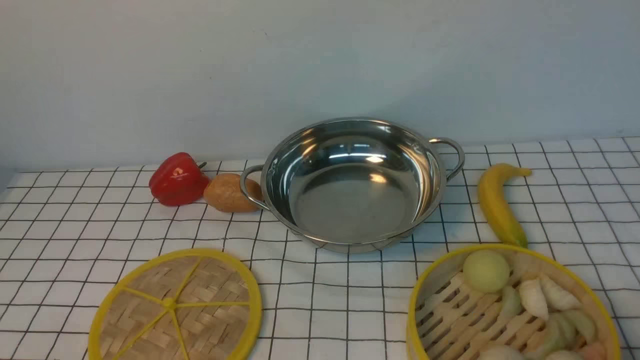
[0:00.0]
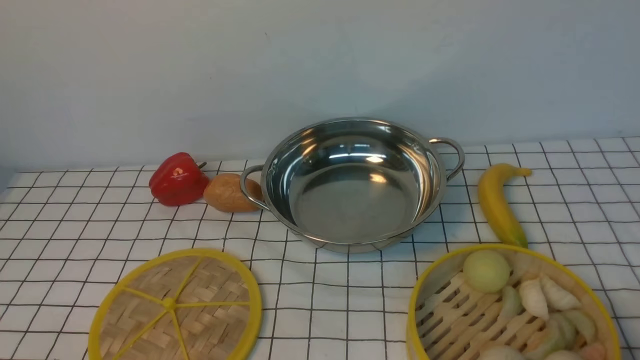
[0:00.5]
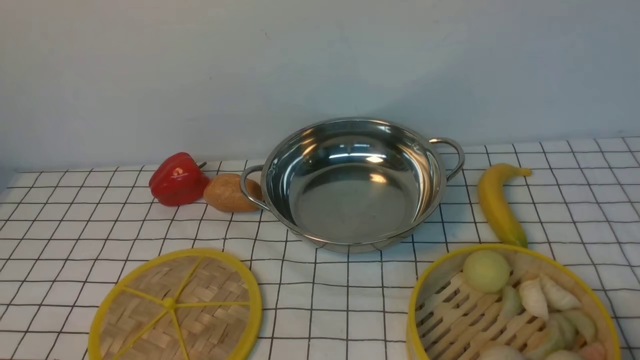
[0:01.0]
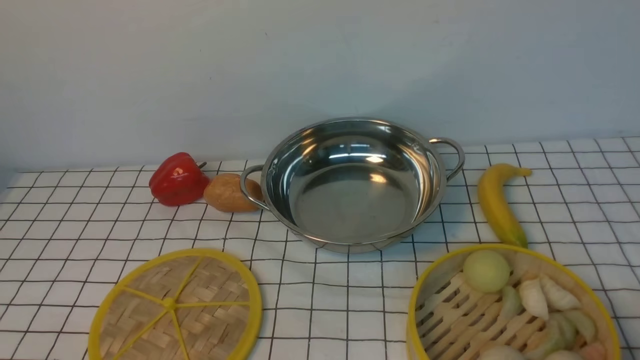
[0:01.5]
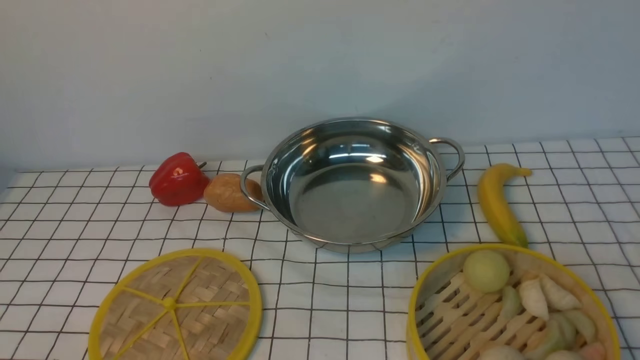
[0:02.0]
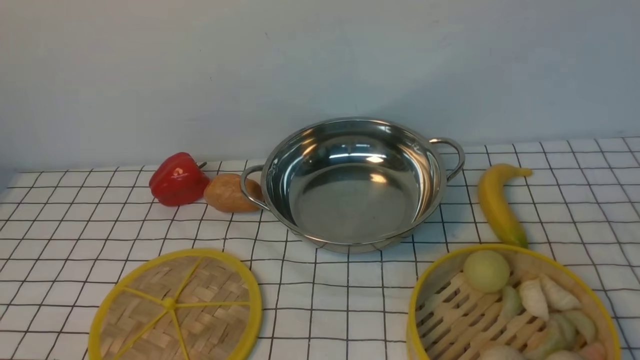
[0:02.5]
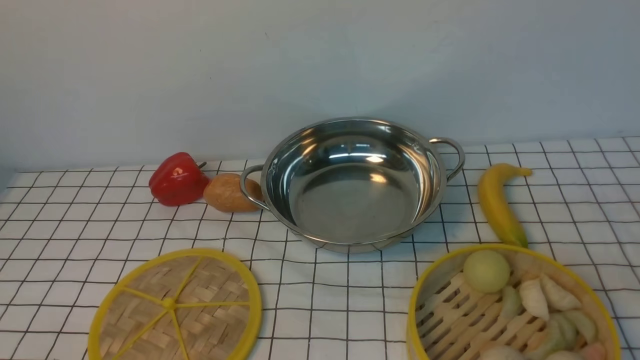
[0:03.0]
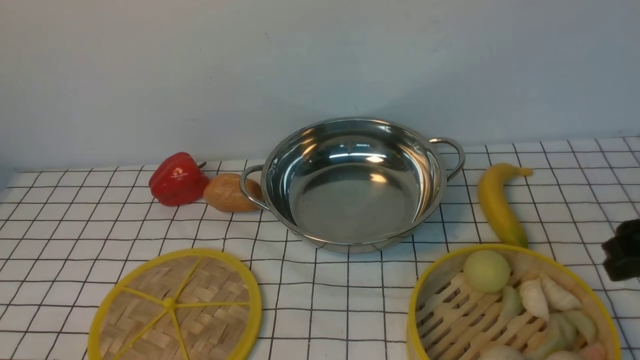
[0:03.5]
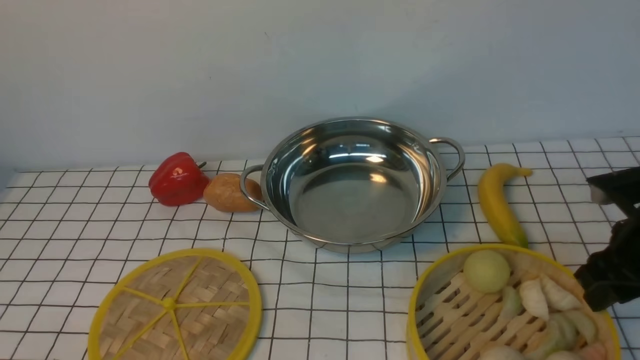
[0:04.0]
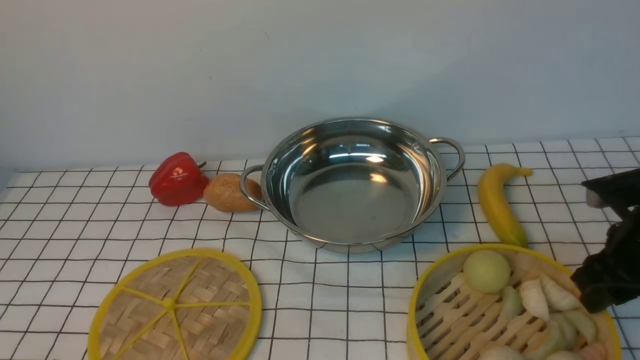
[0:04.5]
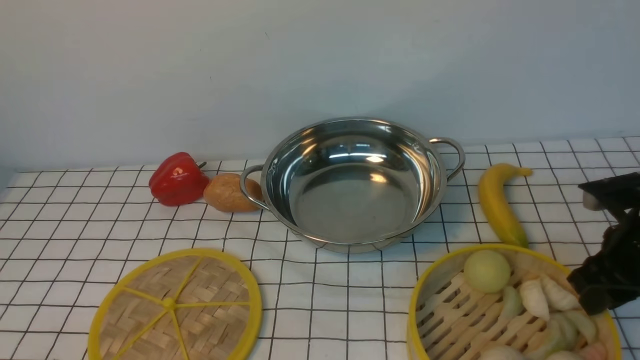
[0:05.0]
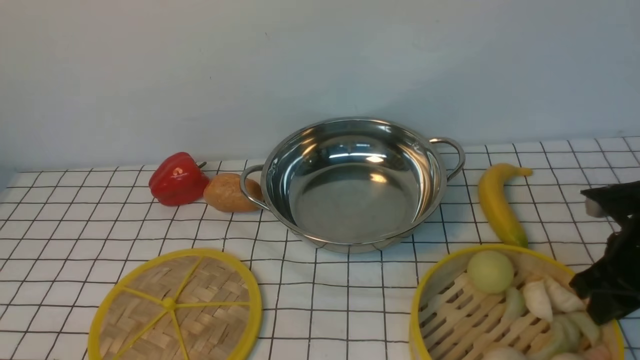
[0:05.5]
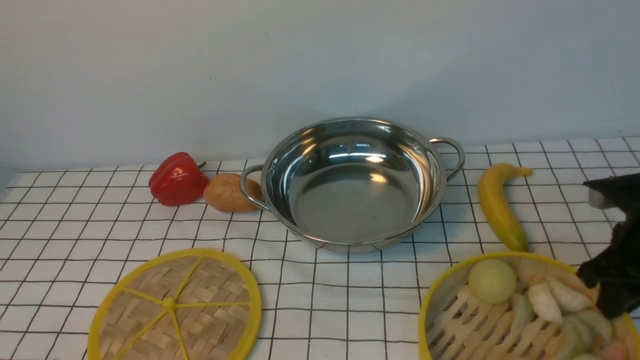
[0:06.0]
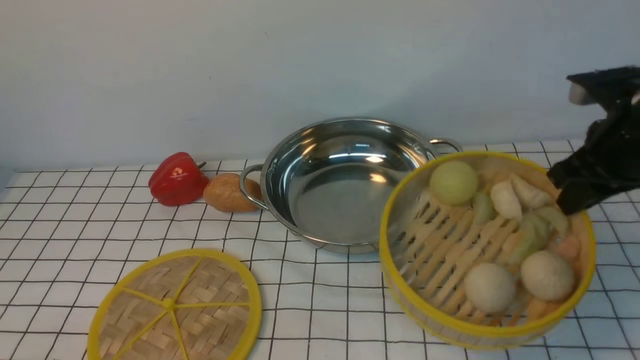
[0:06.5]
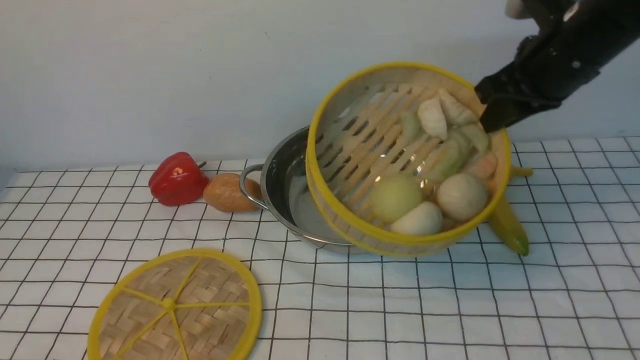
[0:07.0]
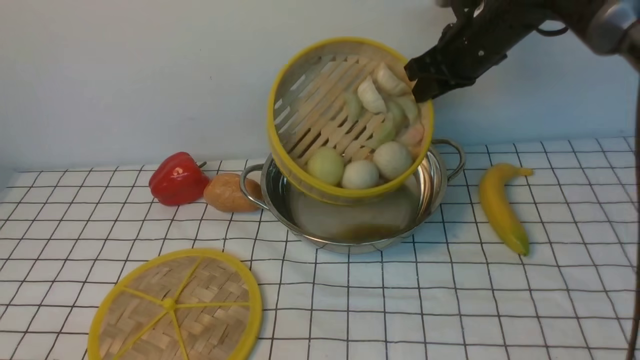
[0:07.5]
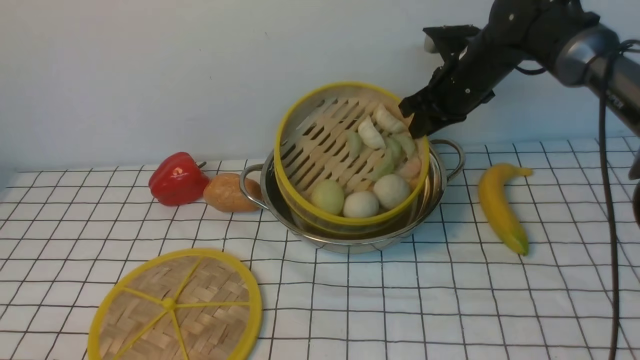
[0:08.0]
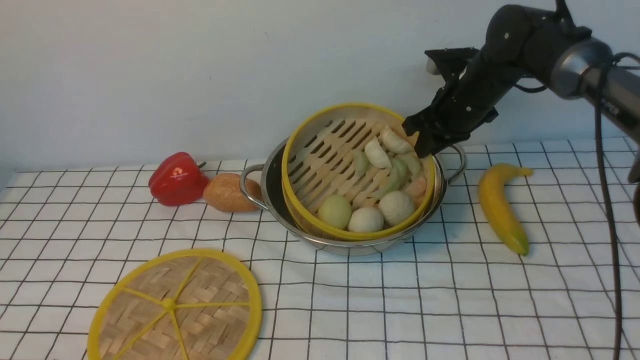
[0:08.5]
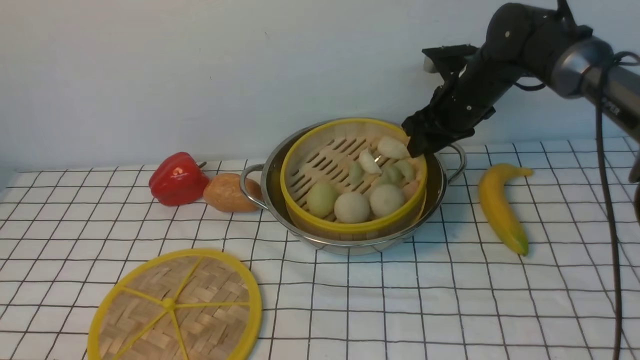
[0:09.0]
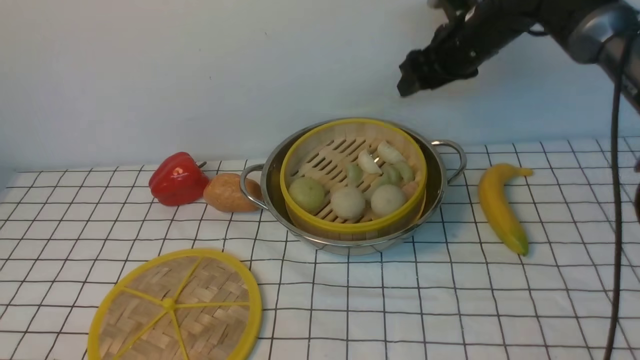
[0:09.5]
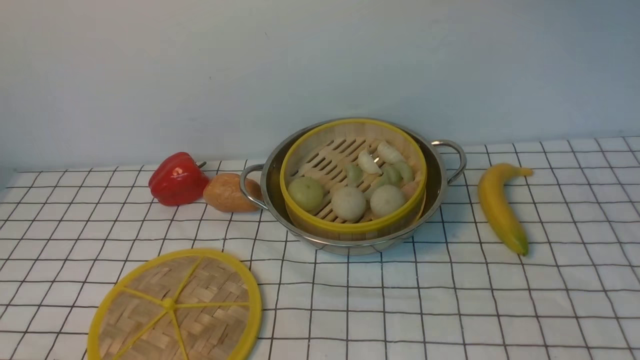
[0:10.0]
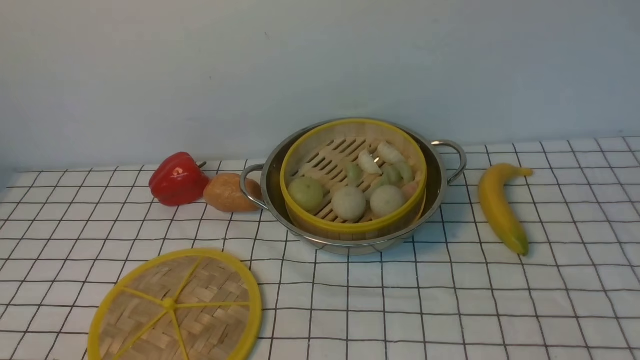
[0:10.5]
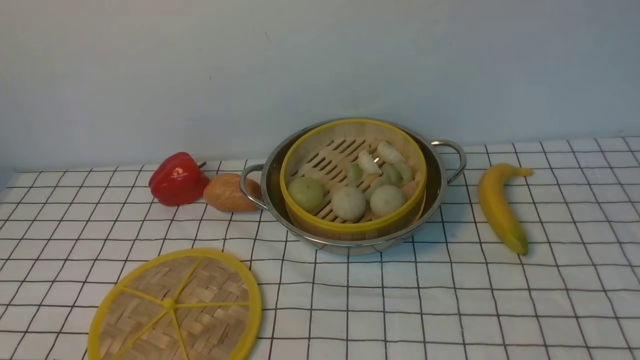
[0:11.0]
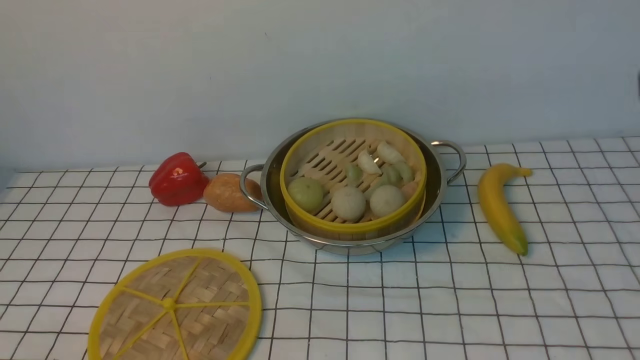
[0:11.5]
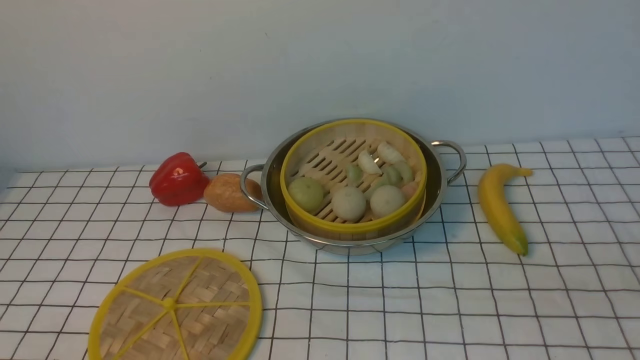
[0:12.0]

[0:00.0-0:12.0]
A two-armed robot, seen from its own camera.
Task of the whole recording: place the steamer in the pot on the white tablecloth, and put the lid on the steamer.
Step, 0:00.0 to 0:05.5: use the right arm to lift the steamer closest to it.
Step, 0:06.0 to 0:09.0: use the right arm to put the steamer into the iron steamer pot in the middle.
0:02.0 to 0:04.0: The right gripper shifts approximately 25 cm forward and downward.
0:04.0 to 0:06.0: The right gripper closes.
0:06.0 to 0:08.0: The right gripper goes some 25 cm forward and to the left.
0:08.0 to 0:10.0: The right gripper shifts roughly 25 cm upward, and opens, then closes once more.

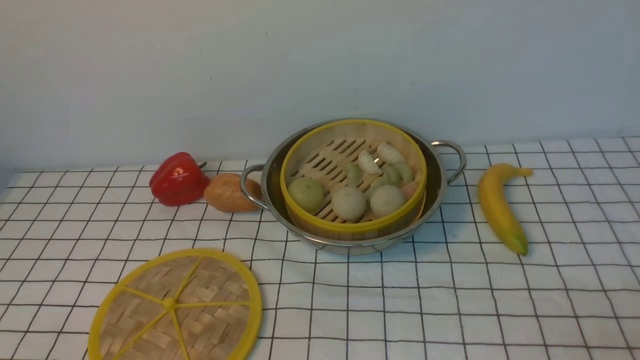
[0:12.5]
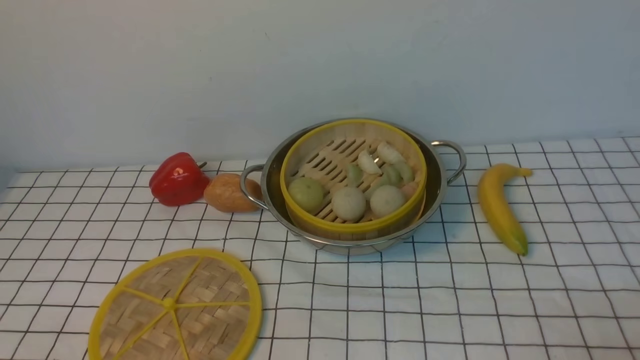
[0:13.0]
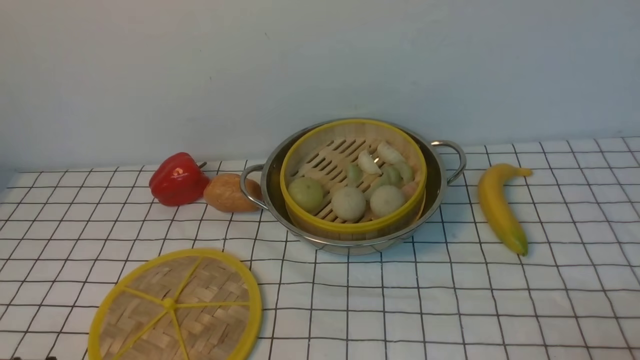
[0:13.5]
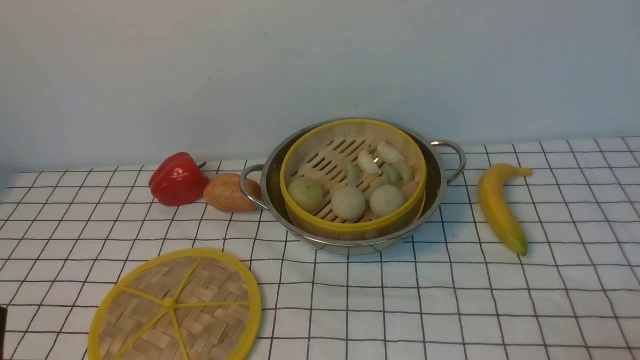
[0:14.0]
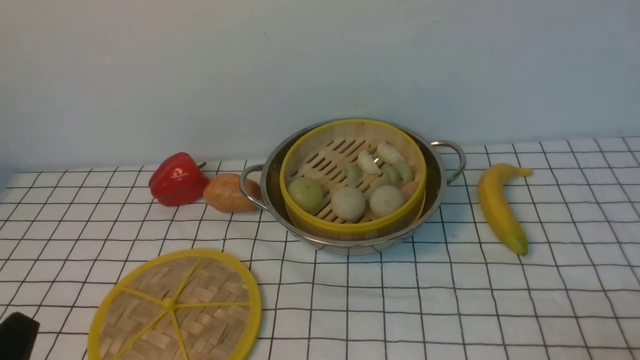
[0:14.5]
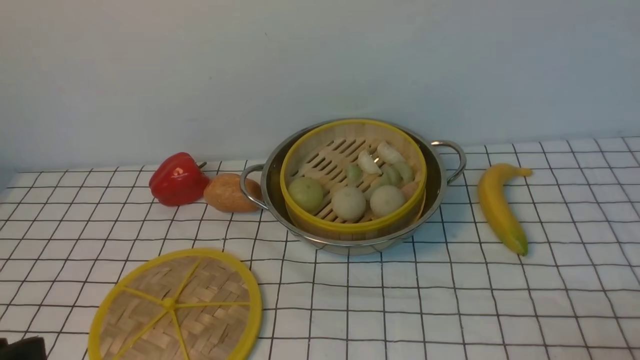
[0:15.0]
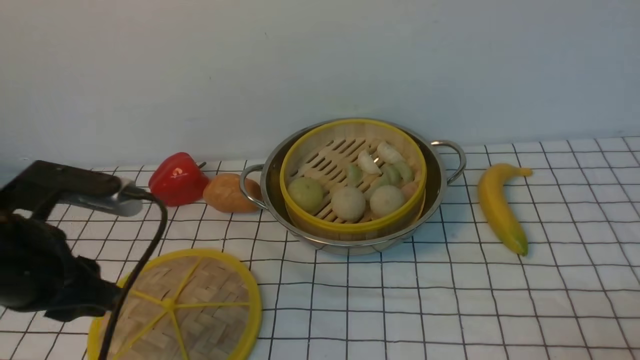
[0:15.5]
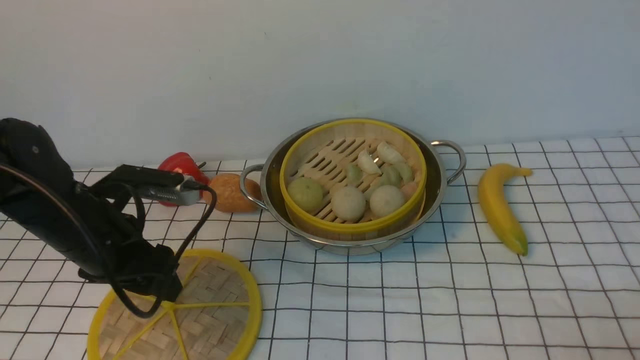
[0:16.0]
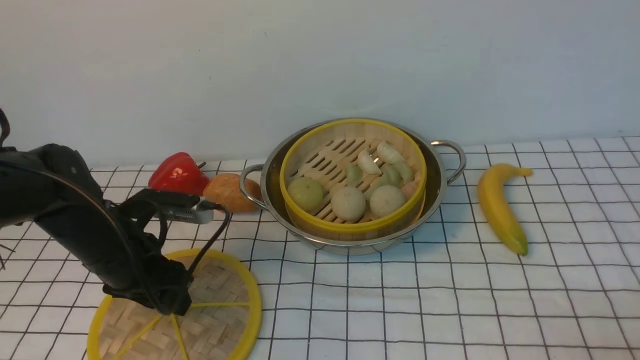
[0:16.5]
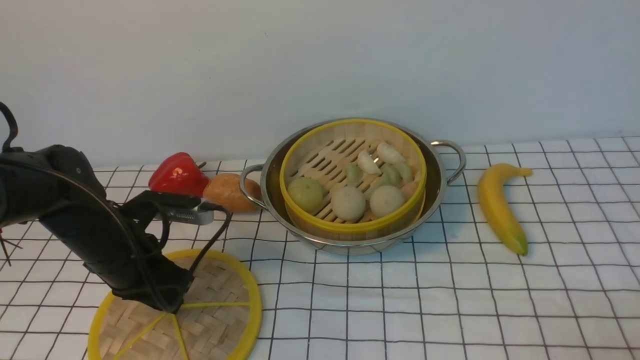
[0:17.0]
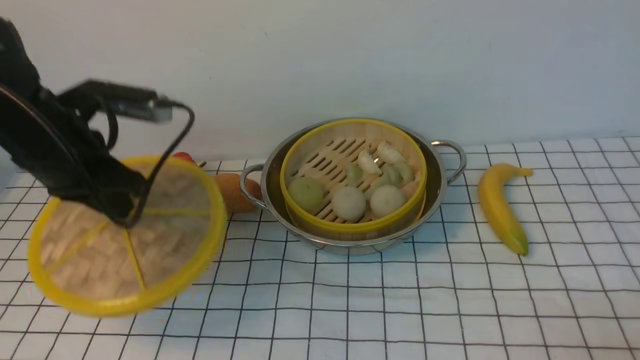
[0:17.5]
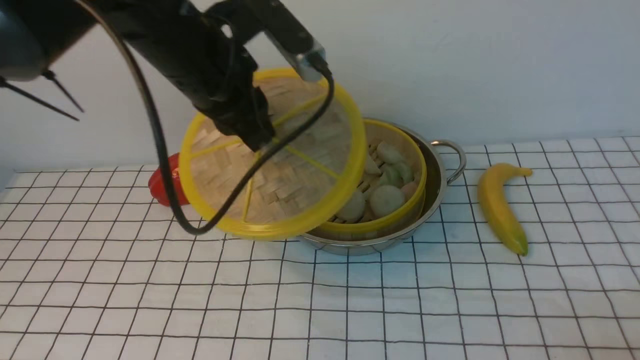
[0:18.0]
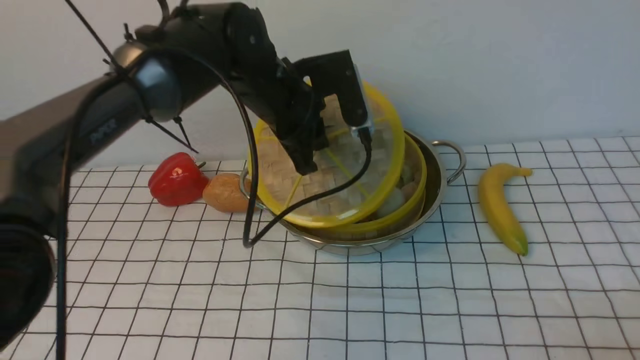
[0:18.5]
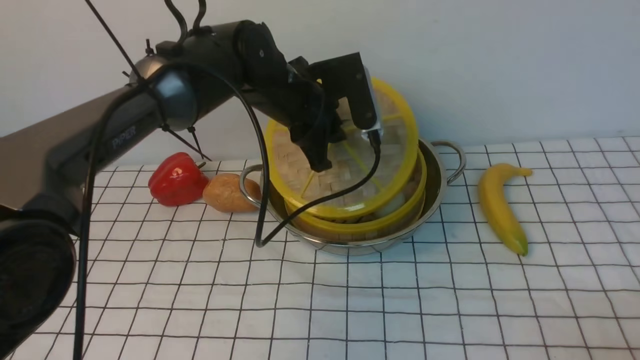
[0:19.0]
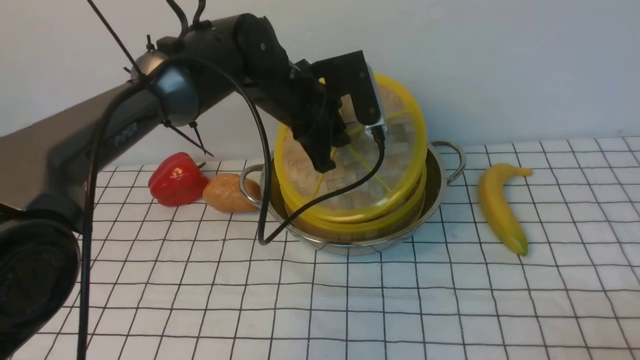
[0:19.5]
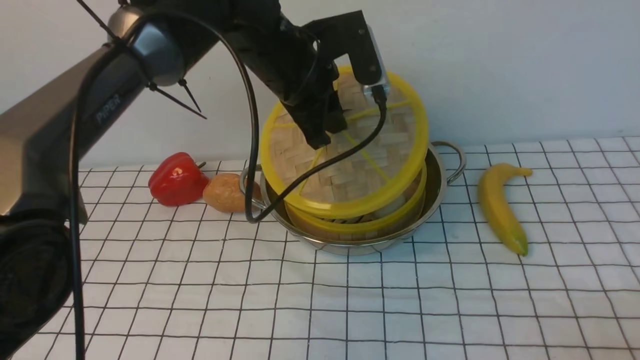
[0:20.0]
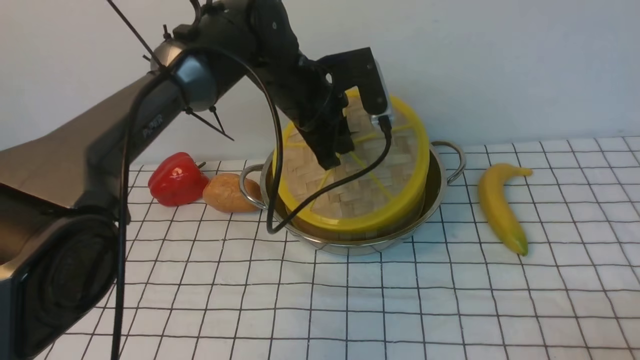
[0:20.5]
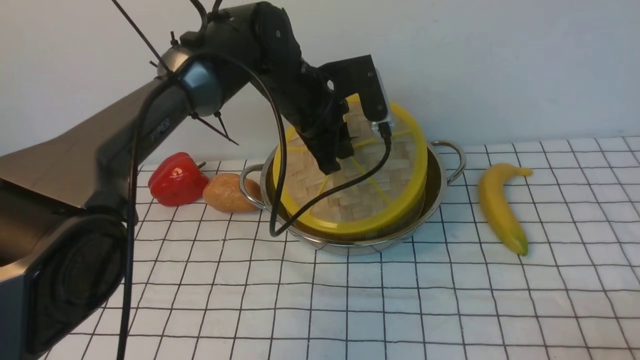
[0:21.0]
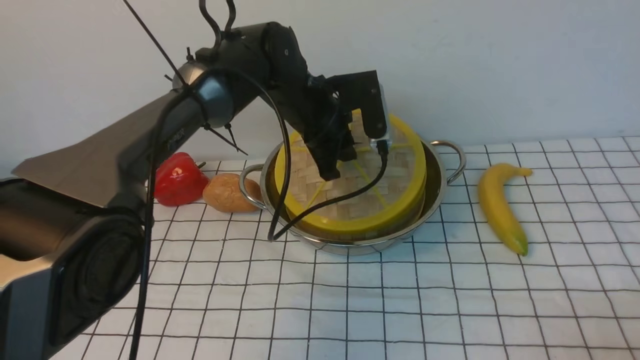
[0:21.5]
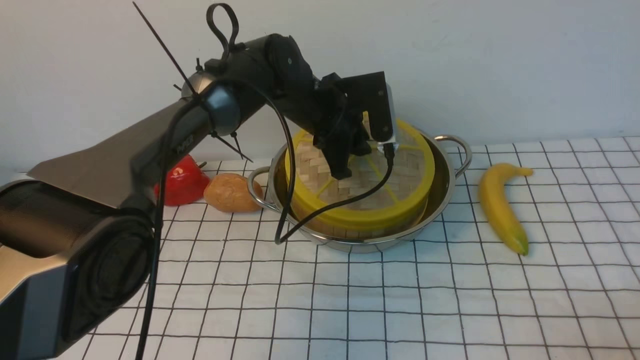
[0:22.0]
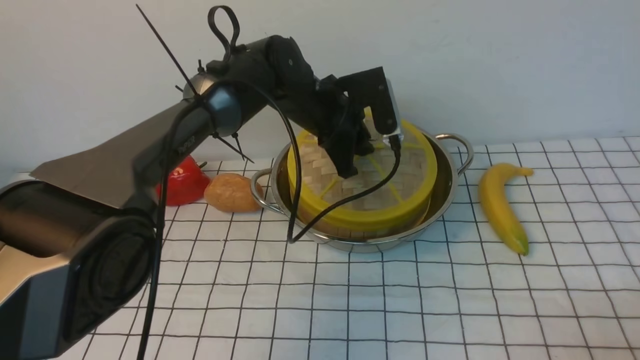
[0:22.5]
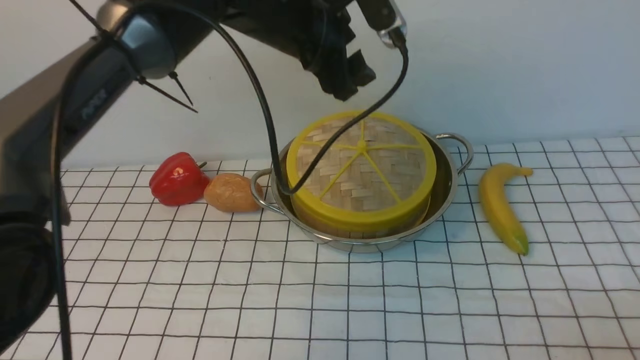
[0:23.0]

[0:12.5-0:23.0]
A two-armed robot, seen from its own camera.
Task of the whole recording: place the steamer in the pot on the white tablecloth, and put the lid on the steamer.
Step, 0:12.5 to 0:17.0: use the left arm to lift the lid of the steamer.
Step, 0:17.5 to 0:22.5: use the left arm to place the steamer lid on the steamer.
0:12.5 to 0:14.5: The left gripper moves upward, roughly 5 cm.
0:14.5 to 0:16.5: The left gripper shifts about 25 cm forward.
0:16.5 to 0:19.0: The left gripper goes approximately 25 cm to the right, forward and upward, and closes.
0:19.0 to 0:21.0: The grippers stay close to where they were, moving slightly.
0:21.0 to 0:23.0: The left gripper travels upward by approximately 10 cm, and opens its fingers.
